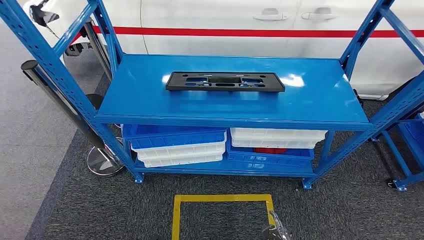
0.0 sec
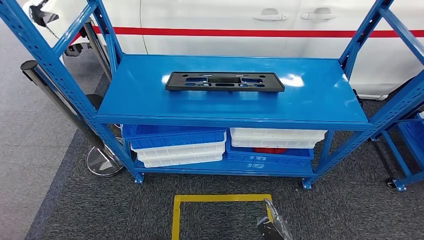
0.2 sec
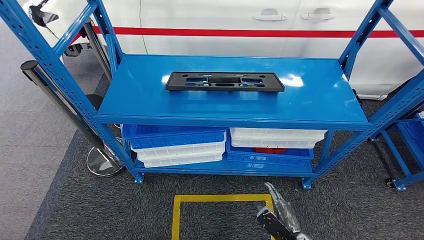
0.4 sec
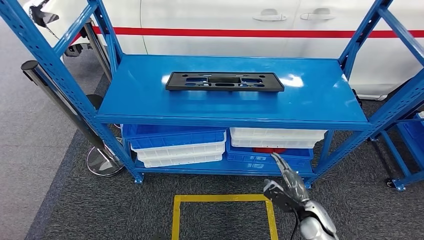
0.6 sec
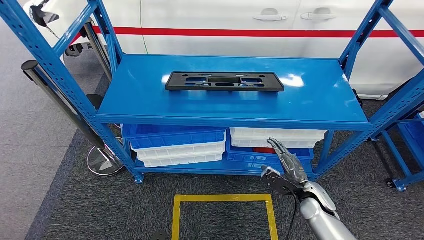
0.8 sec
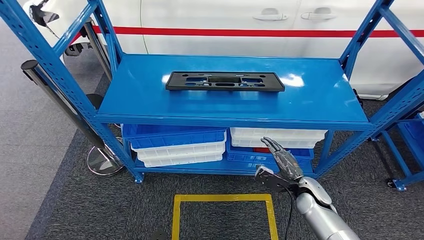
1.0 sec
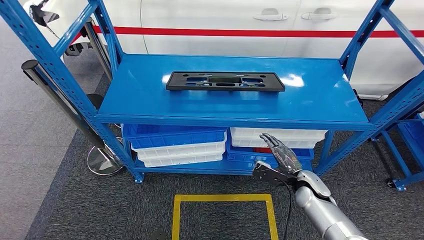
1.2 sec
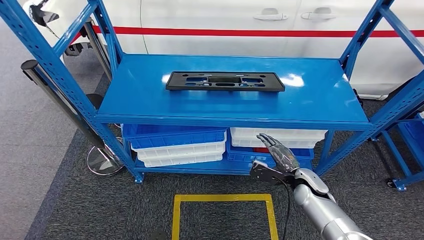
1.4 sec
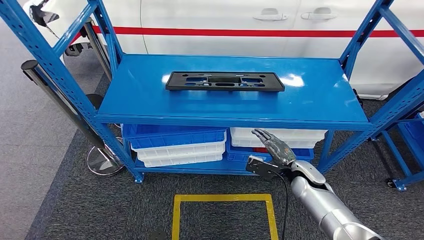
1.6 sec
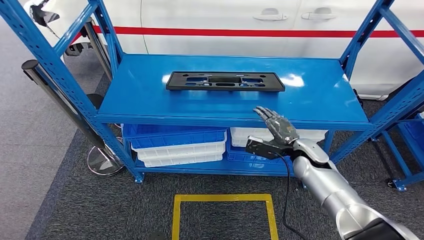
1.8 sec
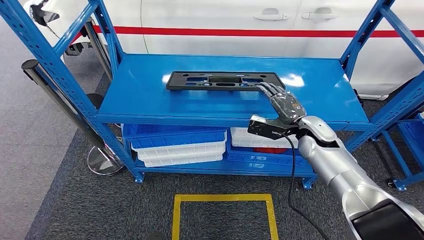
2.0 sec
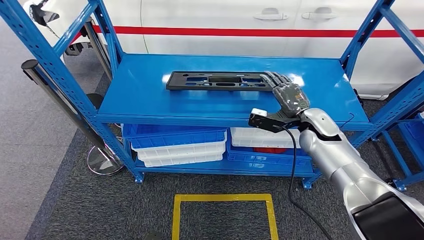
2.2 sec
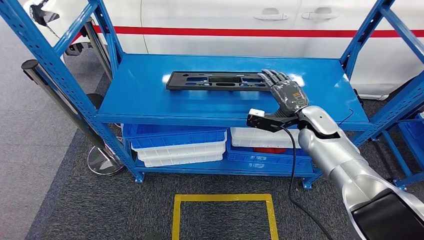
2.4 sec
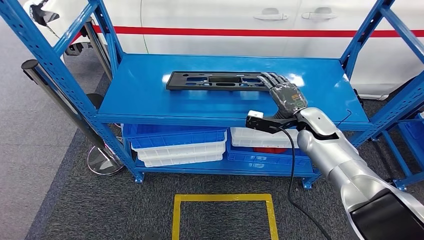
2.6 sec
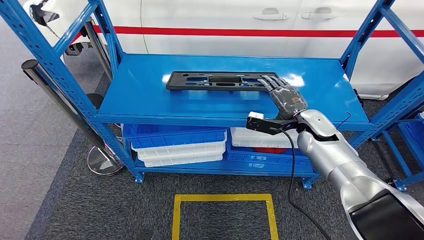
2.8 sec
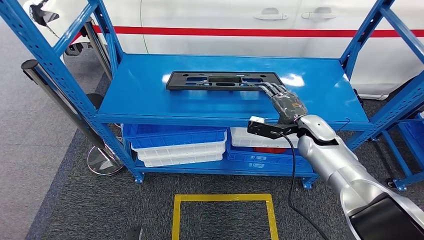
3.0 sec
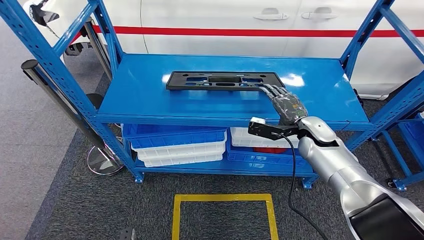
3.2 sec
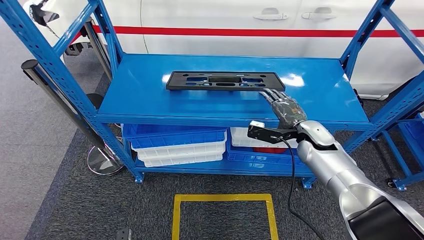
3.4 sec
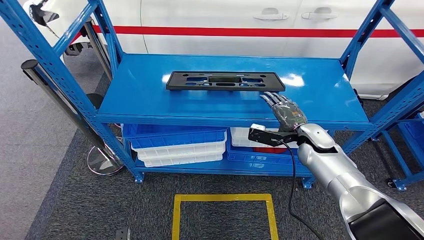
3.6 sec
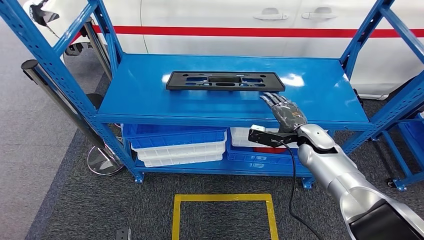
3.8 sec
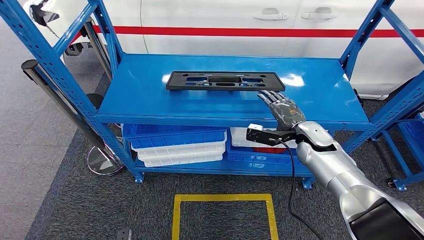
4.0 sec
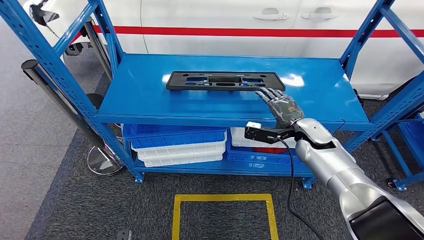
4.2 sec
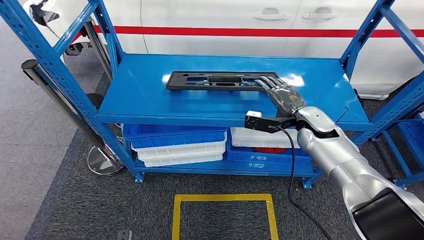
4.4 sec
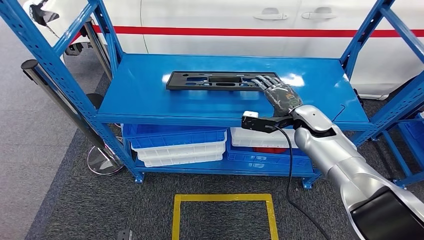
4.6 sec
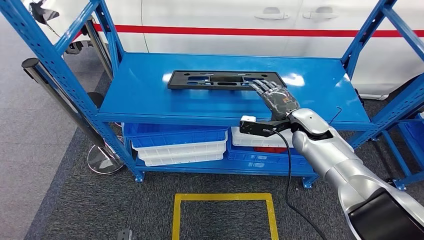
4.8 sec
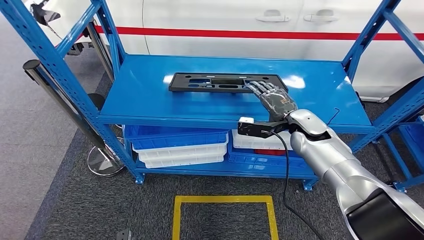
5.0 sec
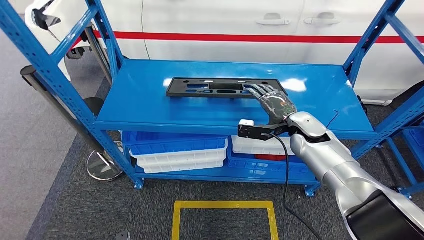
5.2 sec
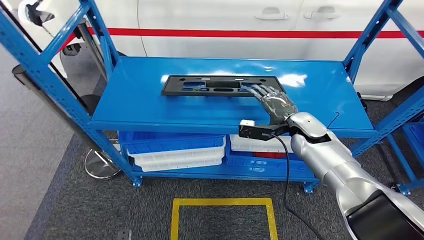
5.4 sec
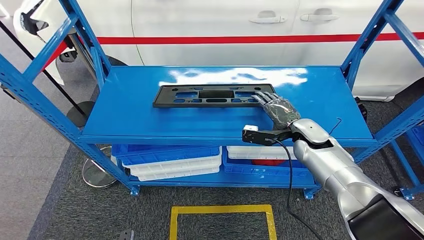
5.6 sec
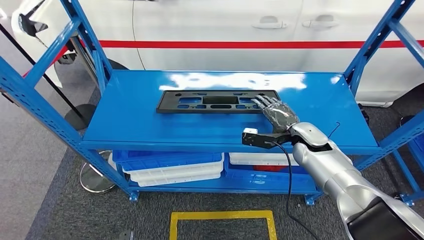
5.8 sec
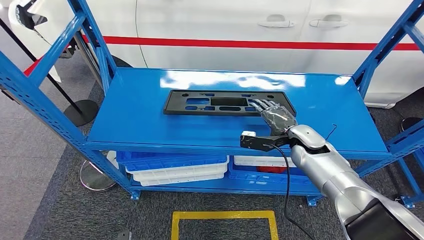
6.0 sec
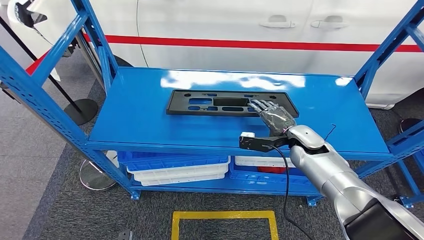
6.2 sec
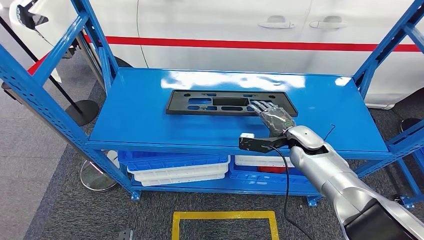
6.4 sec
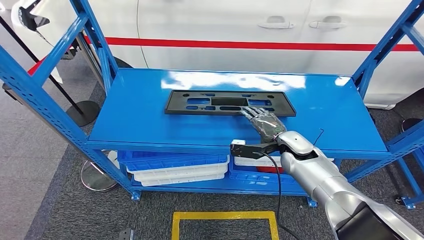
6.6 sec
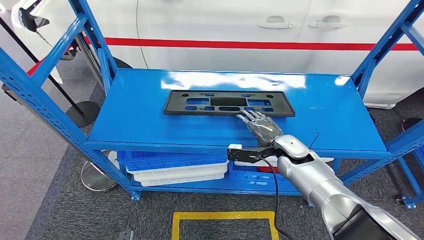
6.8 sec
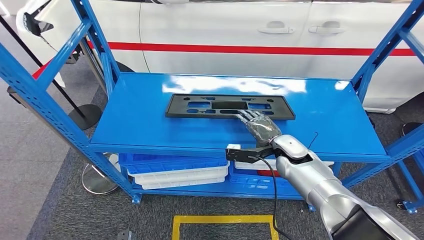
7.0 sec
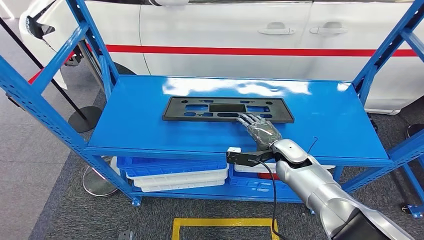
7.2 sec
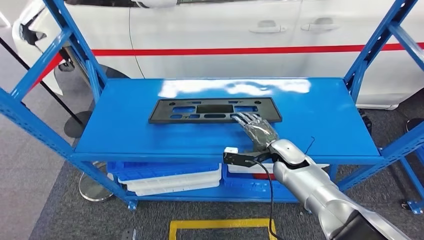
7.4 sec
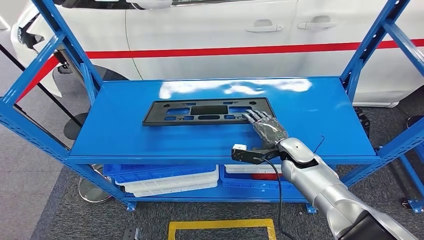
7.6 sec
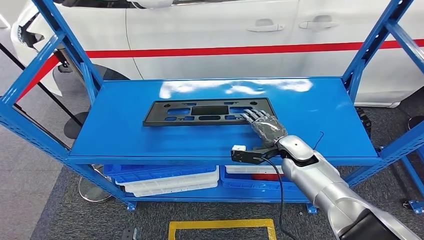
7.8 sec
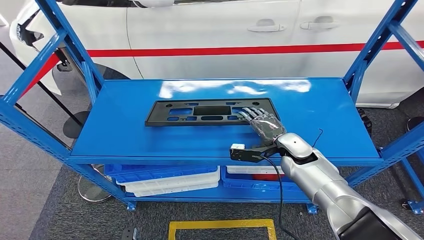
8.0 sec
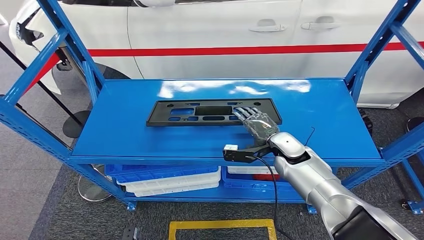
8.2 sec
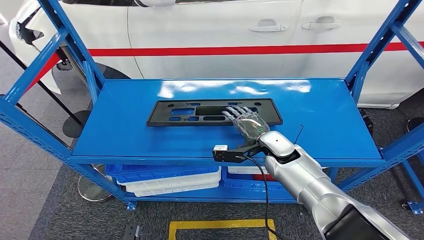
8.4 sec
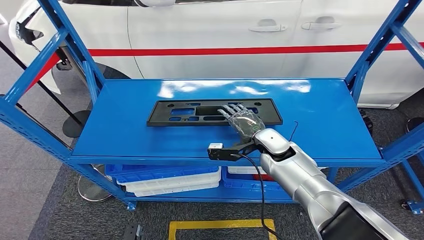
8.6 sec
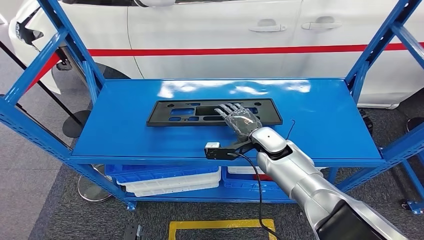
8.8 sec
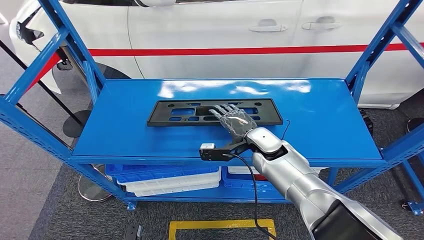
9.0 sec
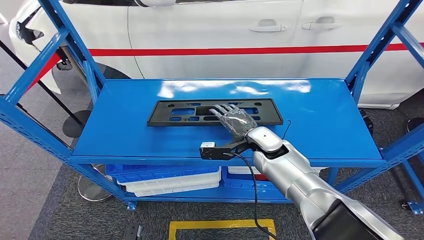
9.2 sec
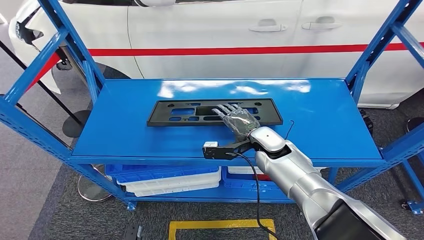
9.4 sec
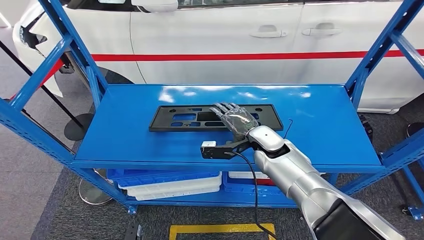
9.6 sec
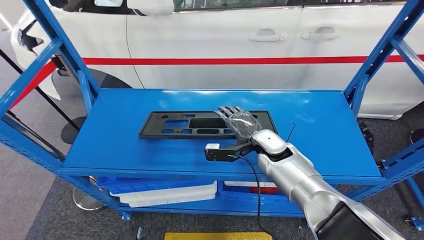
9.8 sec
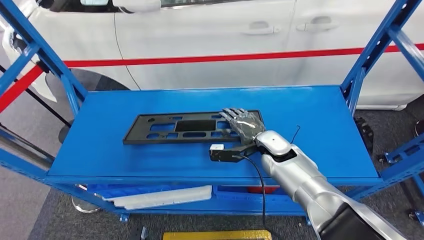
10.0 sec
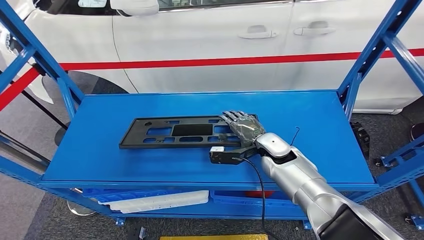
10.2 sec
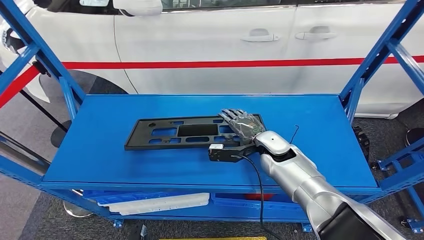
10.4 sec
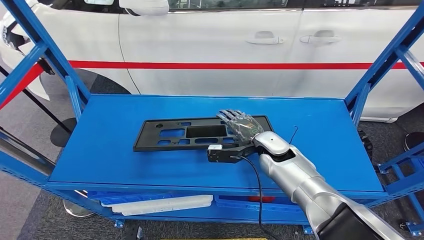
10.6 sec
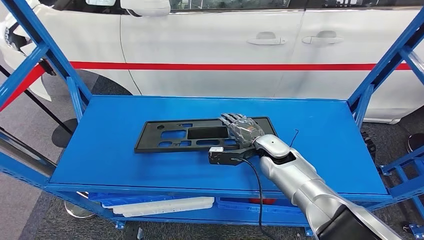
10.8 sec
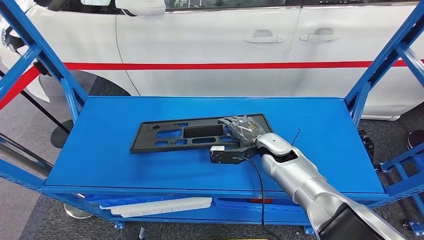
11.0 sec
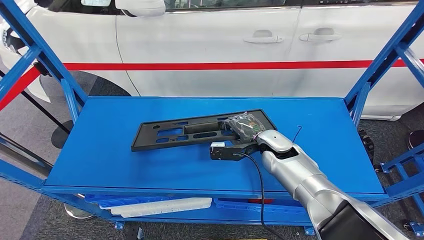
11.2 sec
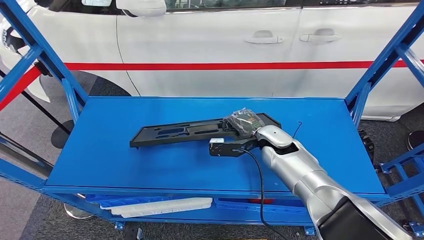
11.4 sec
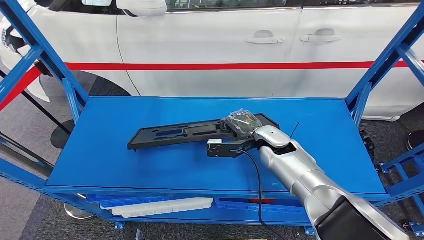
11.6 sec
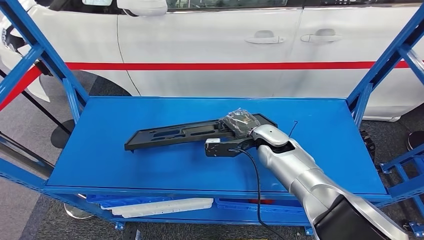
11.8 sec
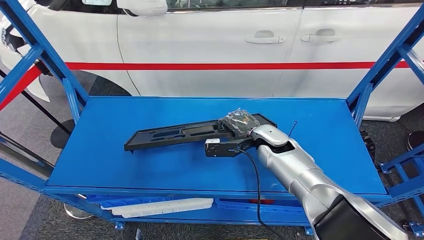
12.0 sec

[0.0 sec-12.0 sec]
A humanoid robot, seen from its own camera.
1.6 sec to 3.0 sec: The right hand shifts about 15 cm upward and forward.
3.0 sec to 4.4 sec: There are only small adjustments of the hands.

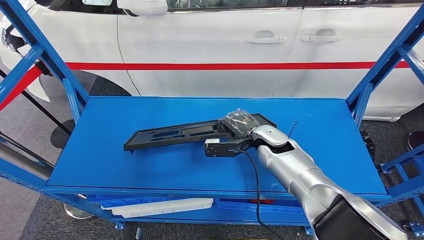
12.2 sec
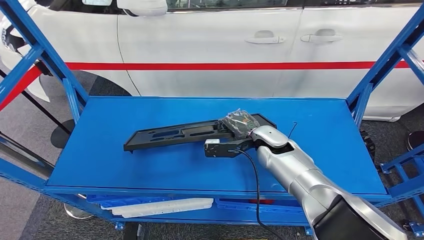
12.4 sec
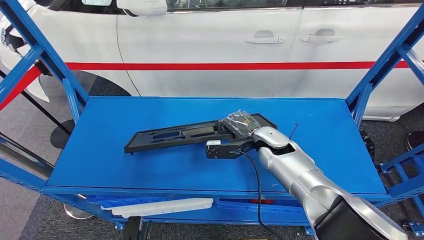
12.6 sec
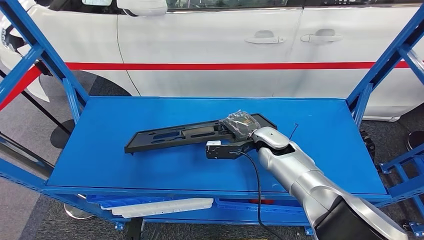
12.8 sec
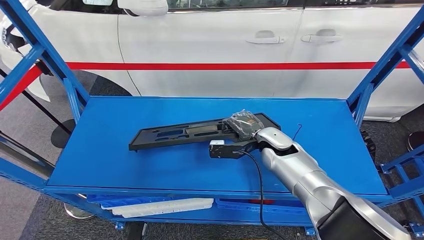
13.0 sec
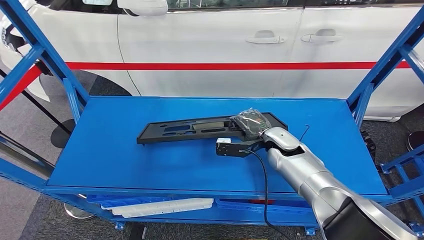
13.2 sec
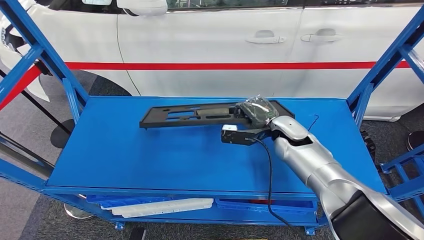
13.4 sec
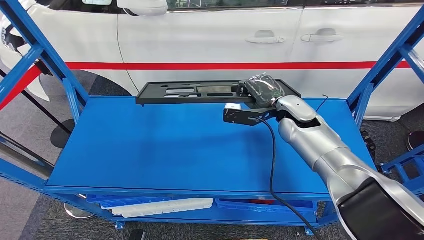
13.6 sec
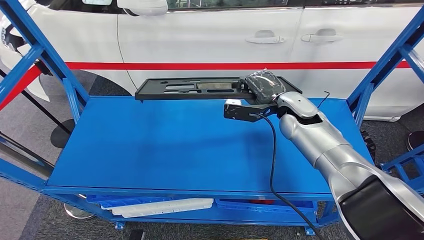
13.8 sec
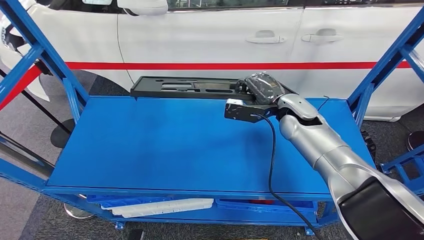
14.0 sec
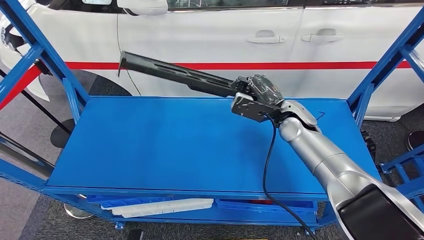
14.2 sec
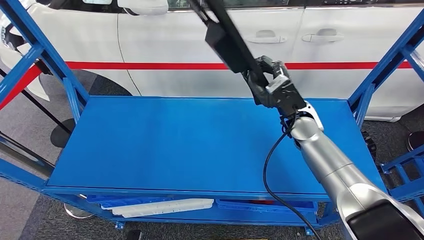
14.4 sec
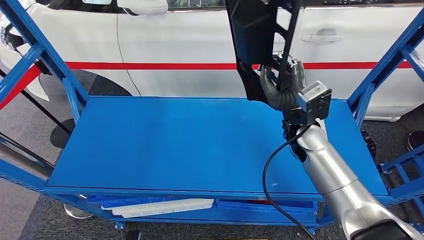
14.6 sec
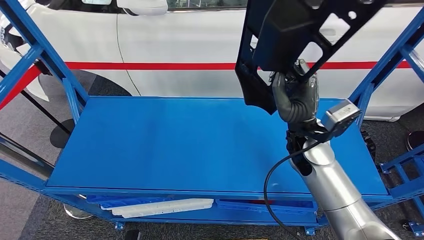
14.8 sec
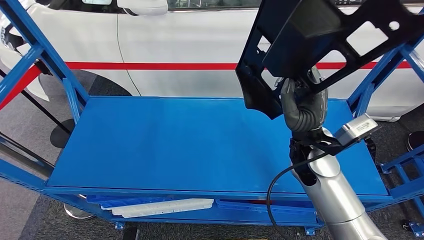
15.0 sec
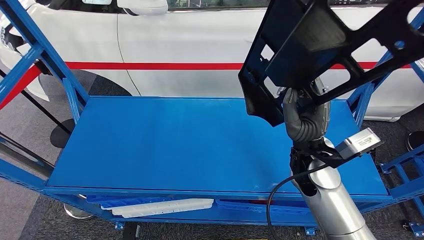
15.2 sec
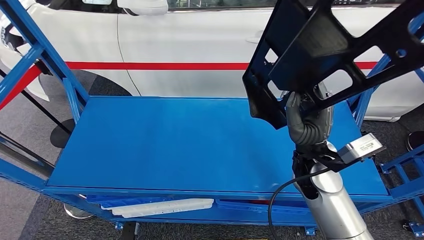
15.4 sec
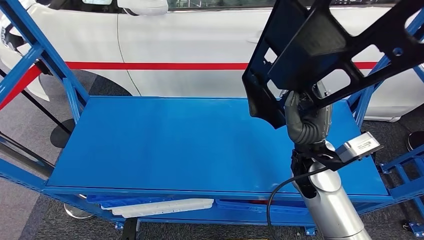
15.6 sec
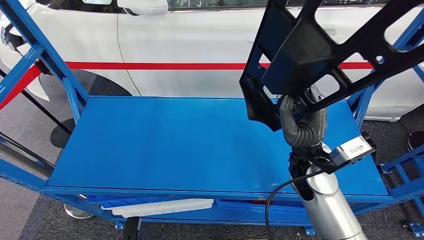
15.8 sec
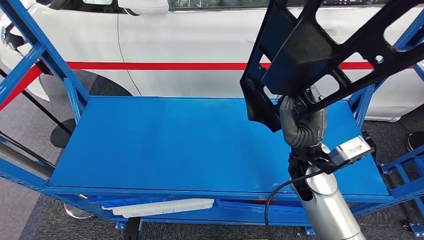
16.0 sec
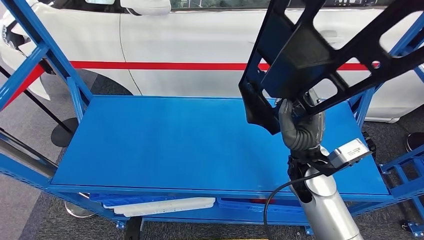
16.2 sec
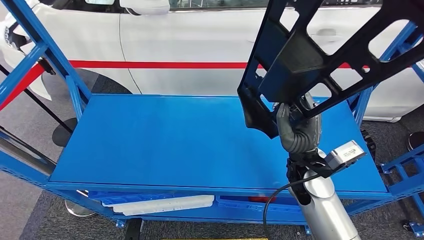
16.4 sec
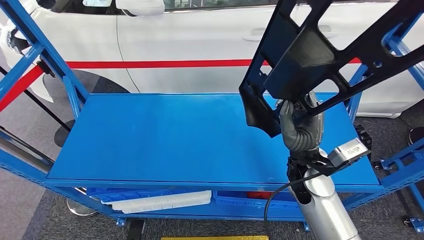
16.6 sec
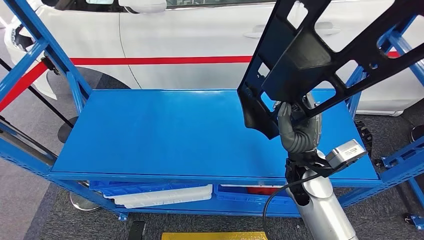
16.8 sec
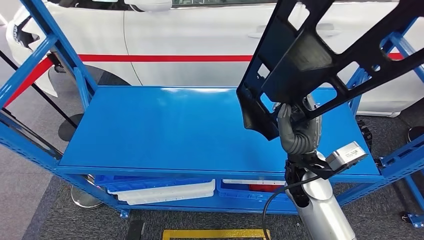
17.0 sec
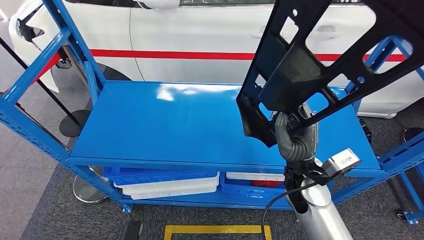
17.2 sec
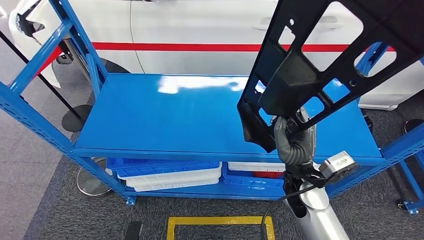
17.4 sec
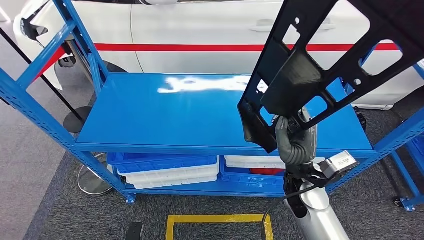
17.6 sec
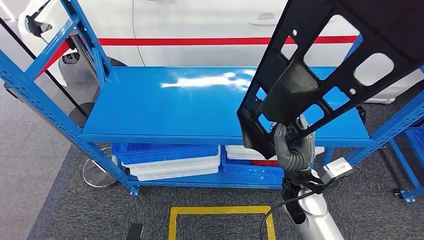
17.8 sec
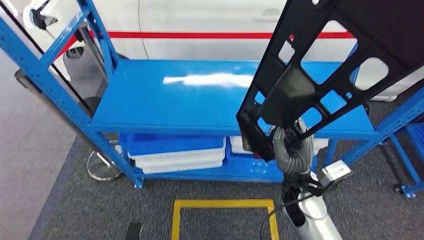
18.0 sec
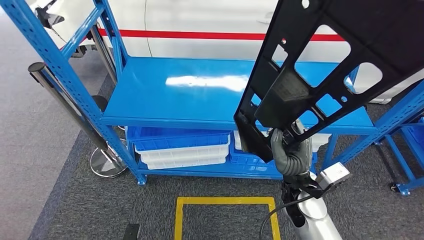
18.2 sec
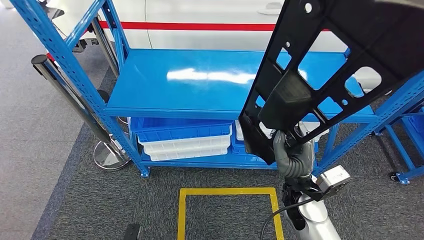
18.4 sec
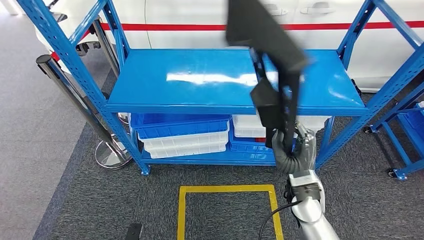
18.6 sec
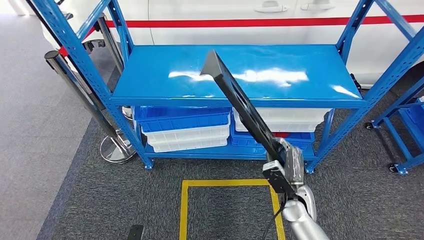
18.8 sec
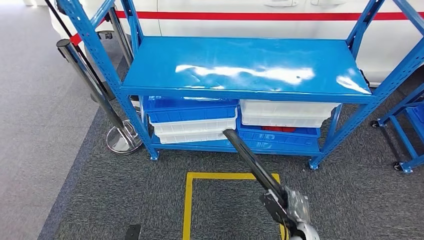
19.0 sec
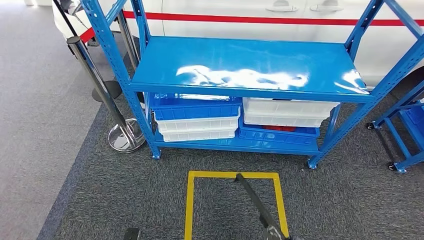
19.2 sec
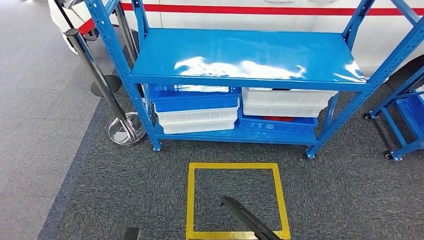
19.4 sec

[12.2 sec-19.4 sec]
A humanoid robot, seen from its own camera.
Step, 12.2 sec to 15.4 sec: Pick up the large material from the shelf.
